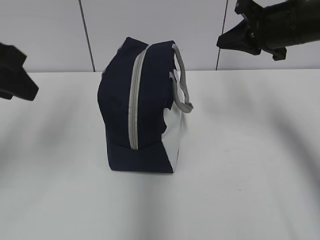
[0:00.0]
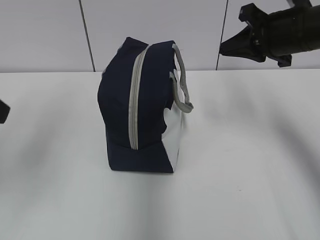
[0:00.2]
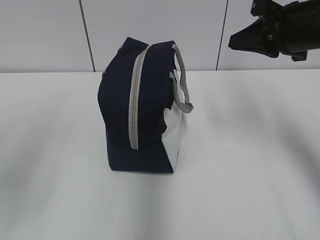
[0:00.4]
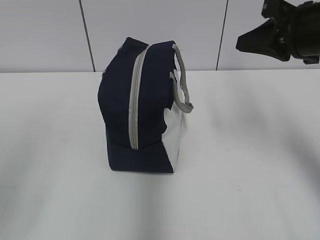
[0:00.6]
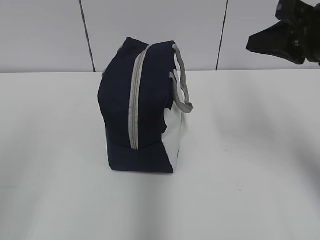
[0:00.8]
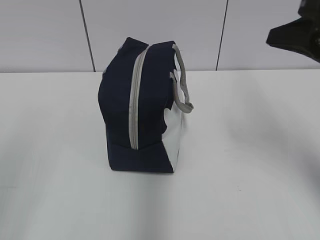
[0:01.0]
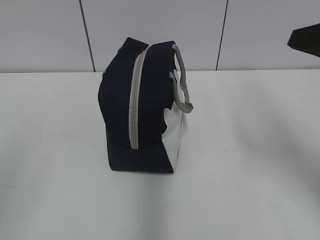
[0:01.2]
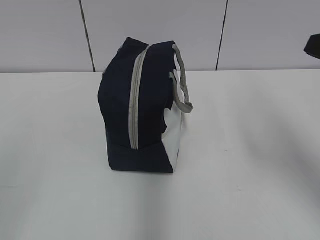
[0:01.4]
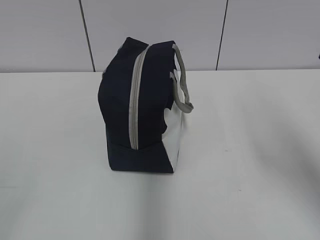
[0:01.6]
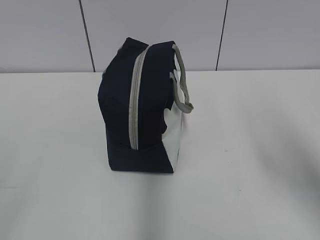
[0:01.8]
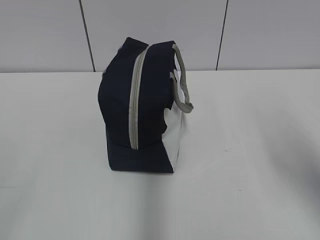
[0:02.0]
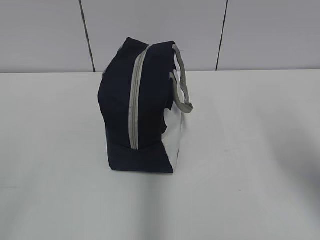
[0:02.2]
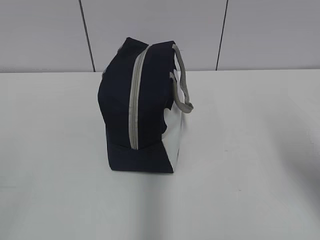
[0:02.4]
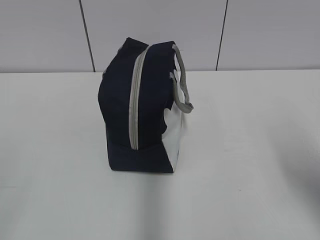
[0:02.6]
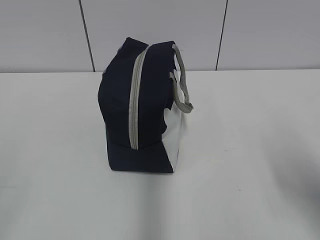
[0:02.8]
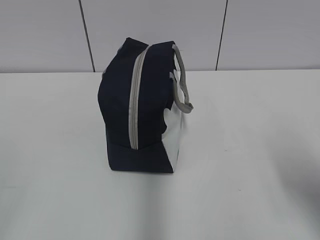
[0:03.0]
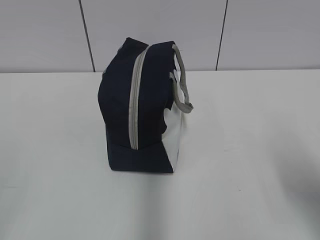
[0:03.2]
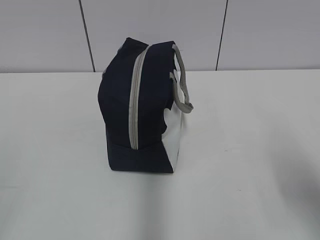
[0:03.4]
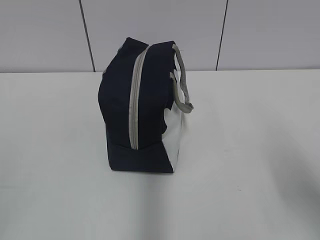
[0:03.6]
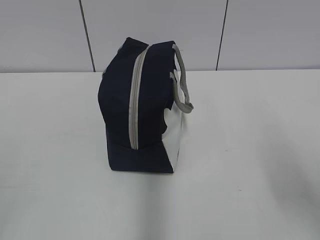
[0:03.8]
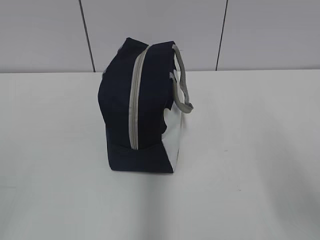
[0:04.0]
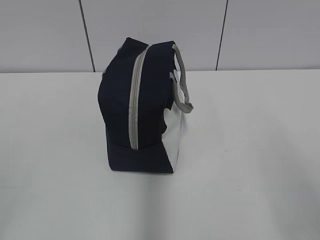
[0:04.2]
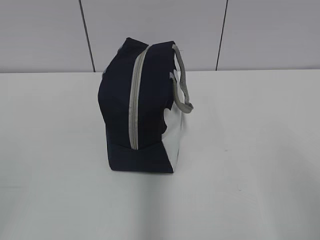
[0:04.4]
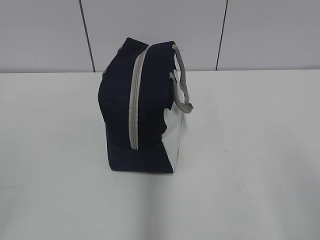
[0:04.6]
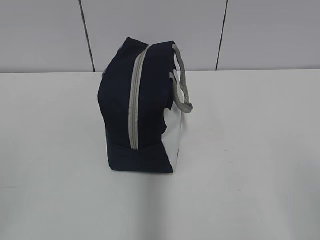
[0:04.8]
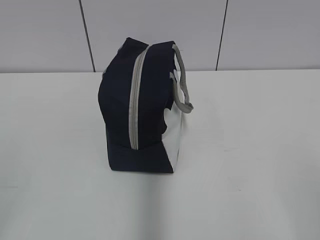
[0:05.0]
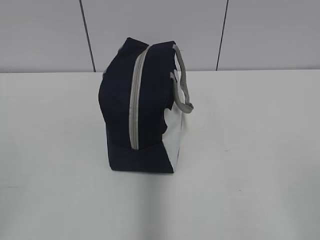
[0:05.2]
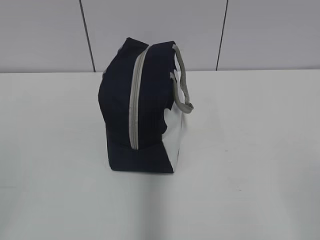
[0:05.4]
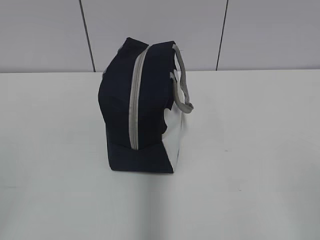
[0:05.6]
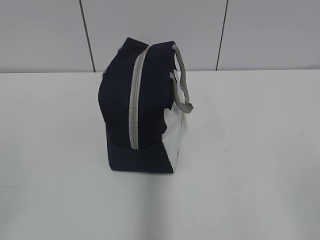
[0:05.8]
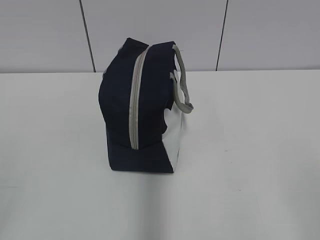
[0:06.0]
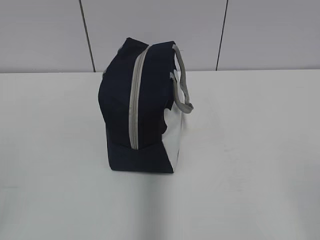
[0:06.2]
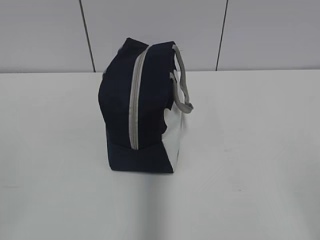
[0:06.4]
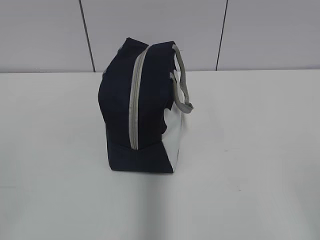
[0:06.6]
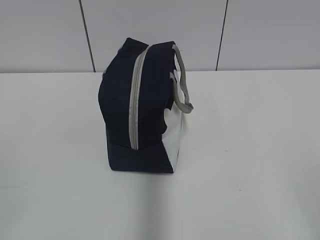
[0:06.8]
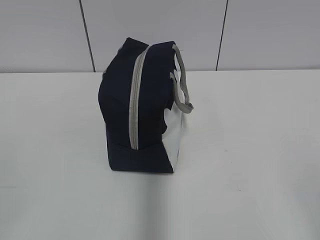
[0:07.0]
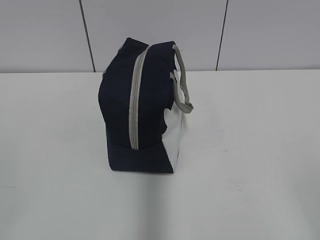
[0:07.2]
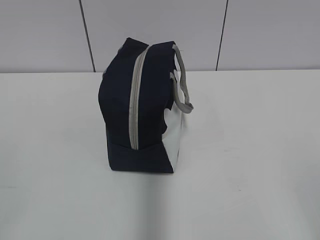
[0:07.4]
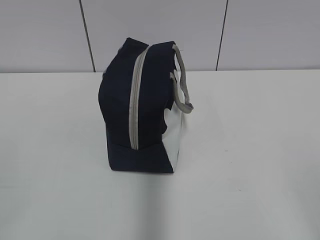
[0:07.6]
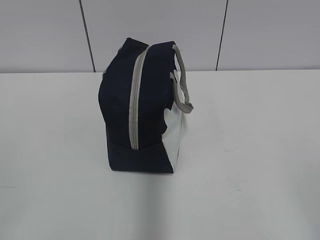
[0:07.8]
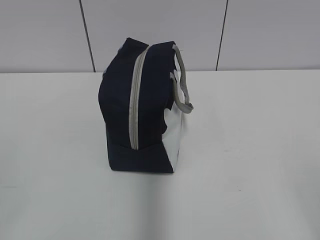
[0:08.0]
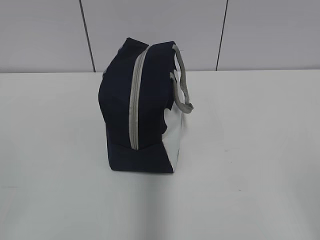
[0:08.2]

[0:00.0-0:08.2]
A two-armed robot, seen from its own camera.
0.0 to 1.6 s: The two grippers go approximately 25 cm backward.
1.6 to 3.2 s: The right gripper shifts some 10 cm downward.
3.2 to 5.0 s: The right gripper shifts about 15 cm backward, and opens its fingers.
6.6 to 8.2 s: Neither gripper changes place.

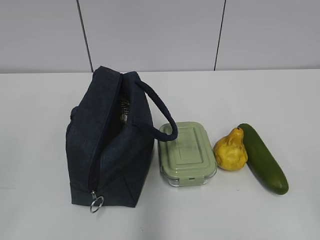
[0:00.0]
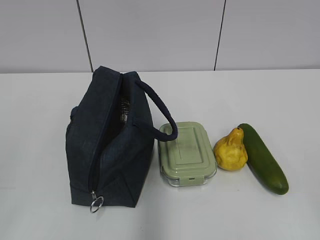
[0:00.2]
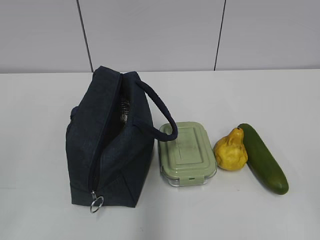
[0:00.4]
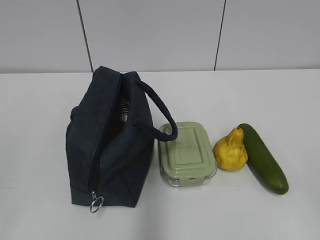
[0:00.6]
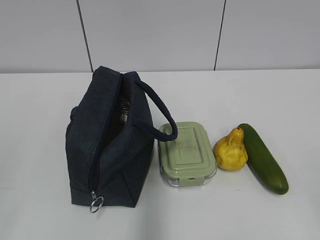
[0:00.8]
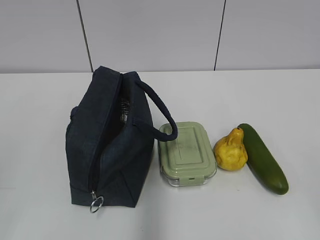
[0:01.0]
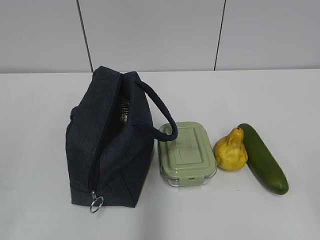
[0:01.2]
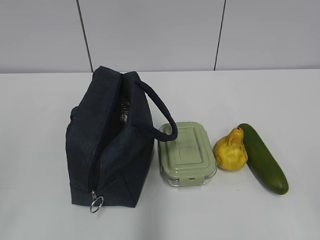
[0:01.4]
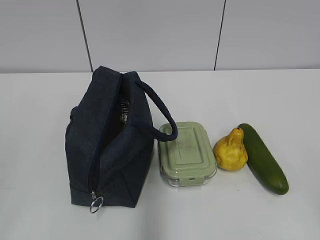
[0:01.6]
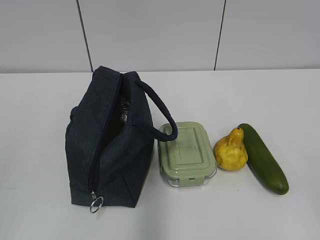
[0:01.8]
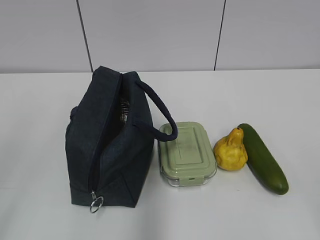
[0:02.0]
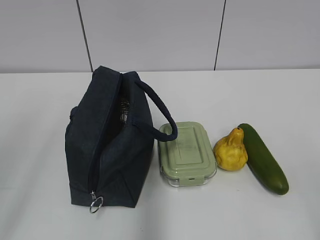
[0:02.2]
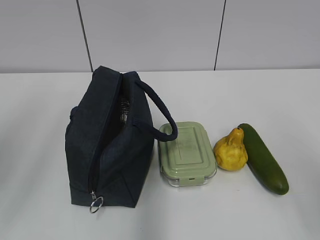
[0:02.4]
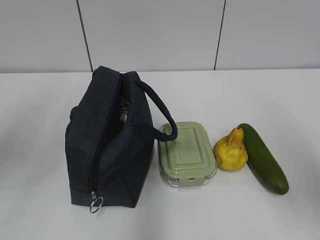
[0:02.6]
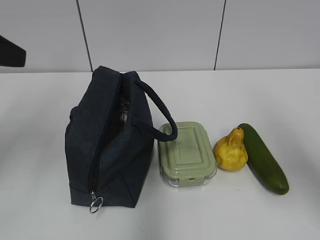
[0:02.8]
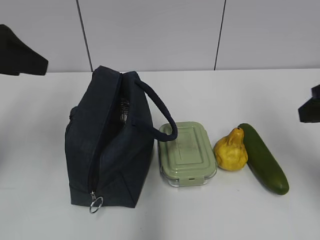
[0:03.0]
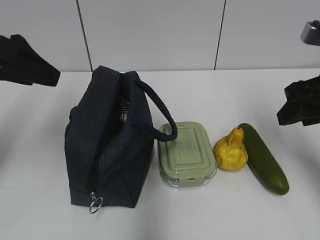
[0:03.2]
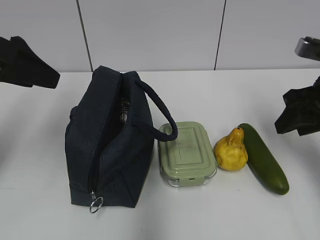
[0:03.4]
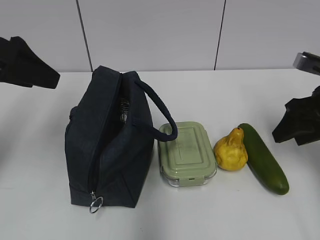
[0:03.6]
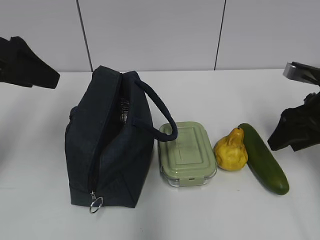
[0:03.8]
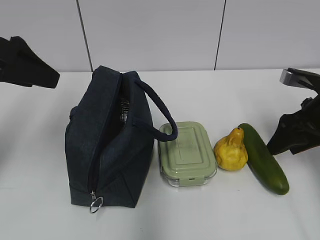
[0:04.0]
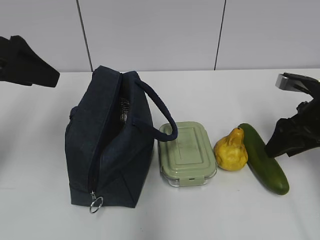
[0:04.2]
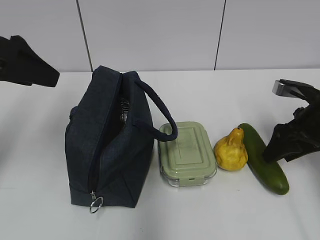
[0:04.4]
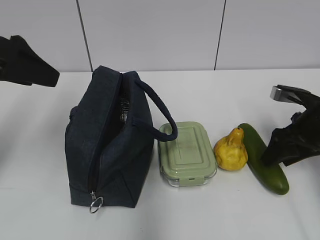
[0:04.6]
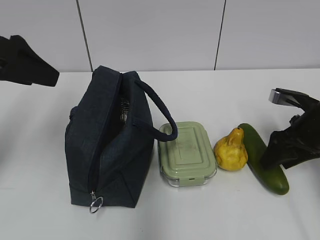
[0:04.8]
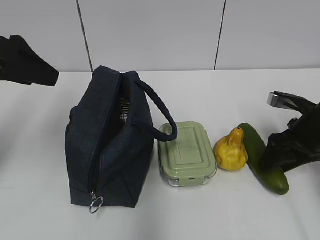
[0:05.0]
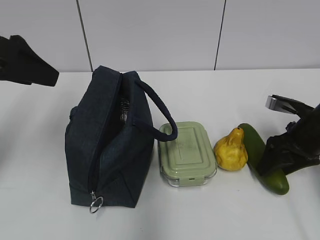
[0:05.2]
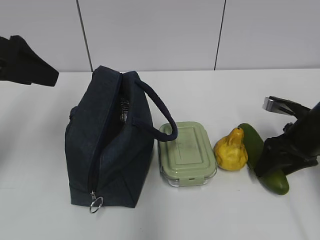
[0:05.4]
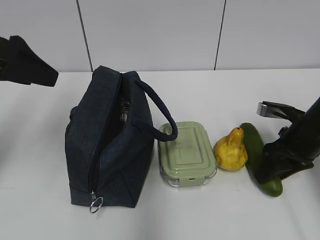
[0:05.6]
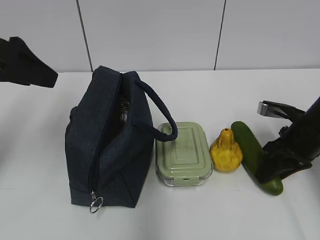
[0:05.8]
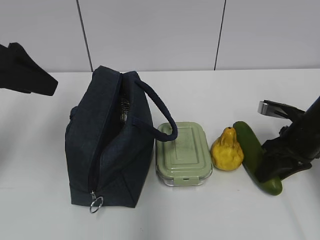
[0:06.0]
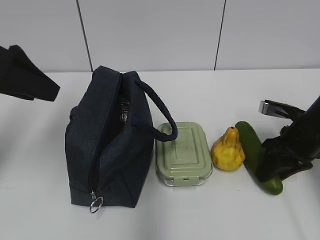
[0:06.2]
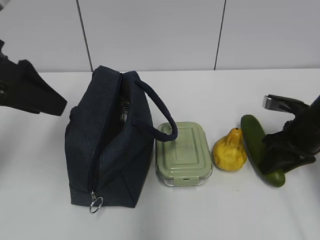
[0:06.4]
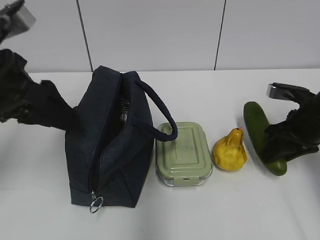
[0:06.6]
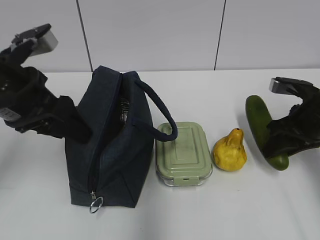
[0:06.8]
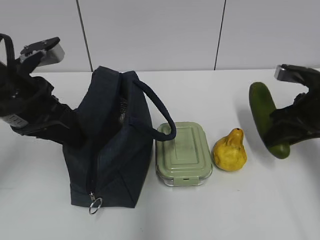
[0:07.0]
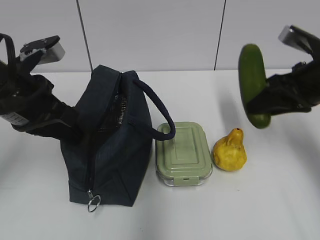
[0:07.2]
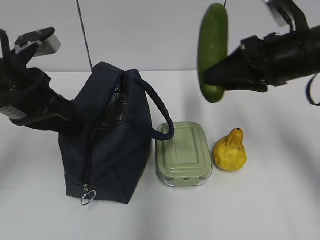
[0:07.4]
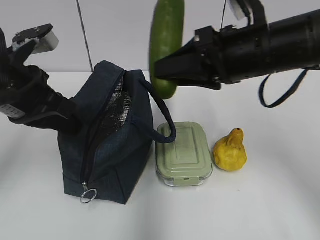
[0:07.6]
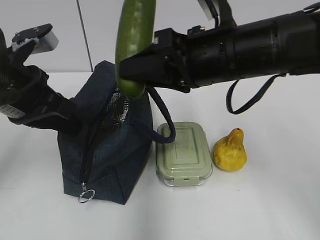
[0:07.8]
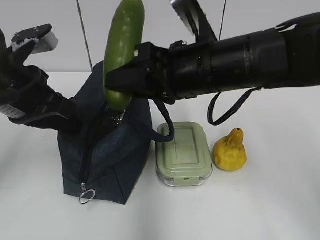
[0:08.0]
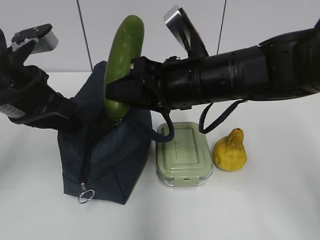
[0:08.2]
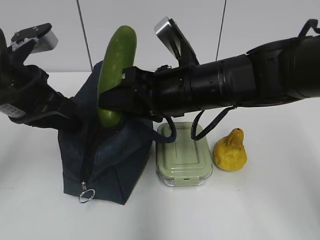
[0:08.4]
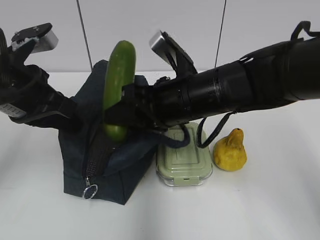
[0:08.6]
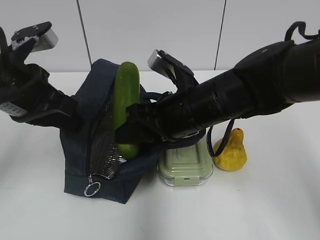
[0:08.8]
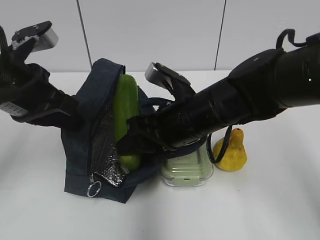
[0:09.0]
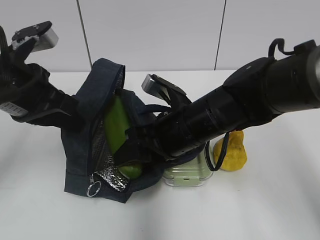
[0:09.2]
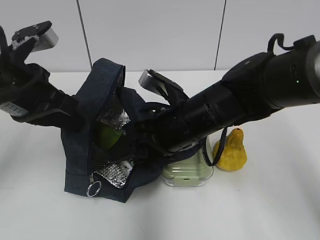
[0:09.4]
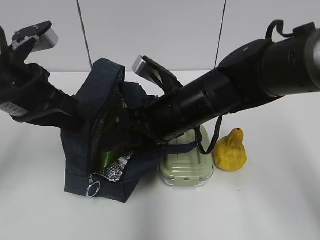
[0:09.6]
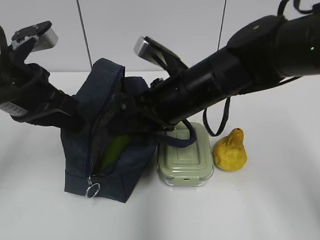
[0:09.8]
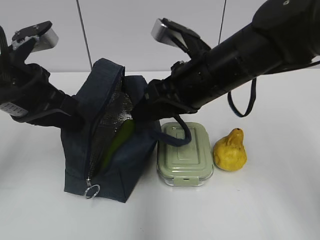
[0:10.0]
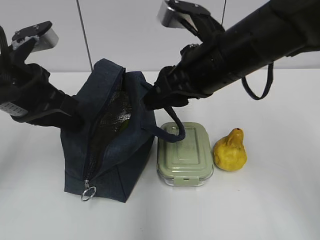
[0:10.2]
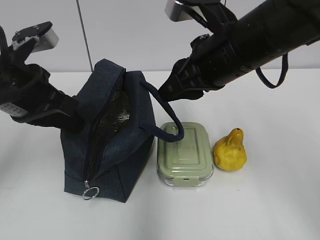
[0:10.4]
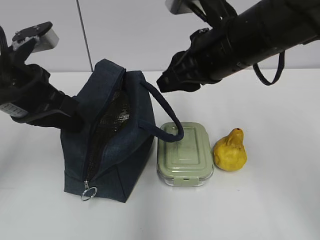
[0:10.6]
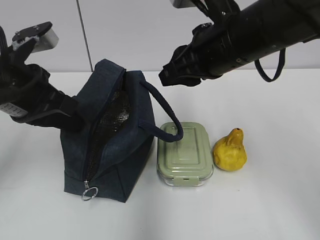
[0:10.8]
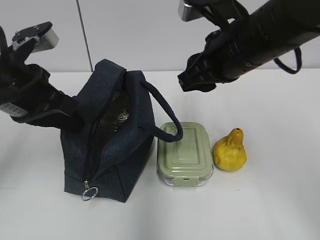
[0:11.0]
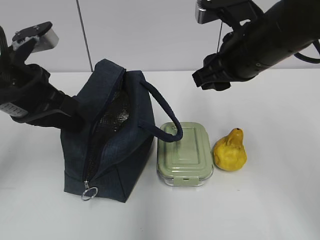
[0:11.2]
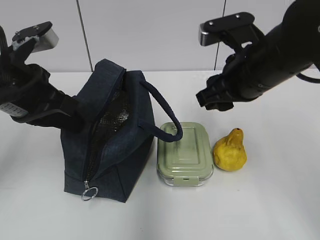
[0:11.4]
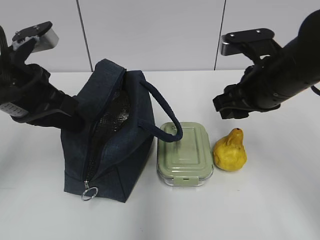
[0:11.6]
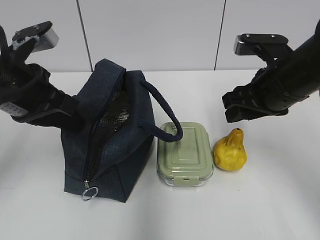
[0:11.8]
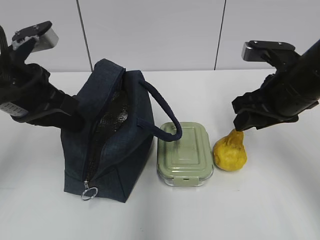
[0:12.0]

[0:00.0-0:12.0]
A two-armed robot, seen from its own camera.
1.6 to 3.0 s: The two grippers go roughly 25 cm forward. The left gripper opens.
3.0 to 4.4 s: The right gripper travels downward and forward by some 15 cm.
4.4 to 6.0 s: The right gripper closes its fingers.
6.0 to 7.6 s: The left gripper moves downward, some 5 cm, and closes; the right gripper shifts approximately 20 cm upward and to the left.
7.6 to 9.0 s: The right gripper is displaced downward and to the left by approximately 10 cm.
9.0 to 10.4 s: The right gripper is displaced upward by roughly 10 cm.
10.4 to 12.0 s: The right gripper travels to the right and downward by approximately 10 cm.

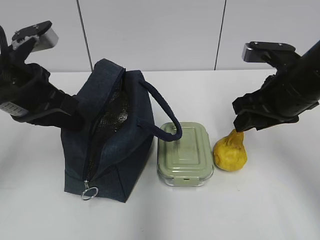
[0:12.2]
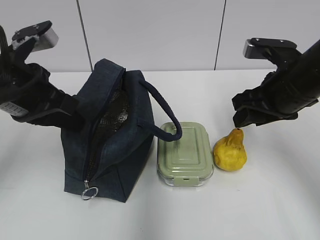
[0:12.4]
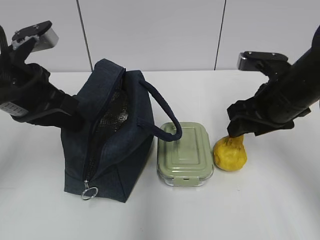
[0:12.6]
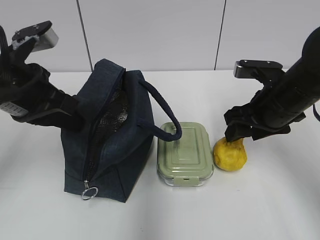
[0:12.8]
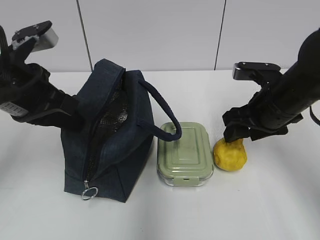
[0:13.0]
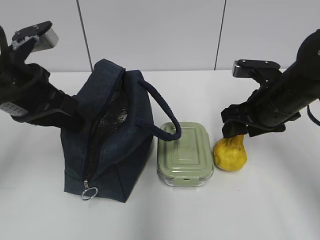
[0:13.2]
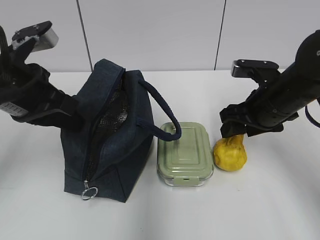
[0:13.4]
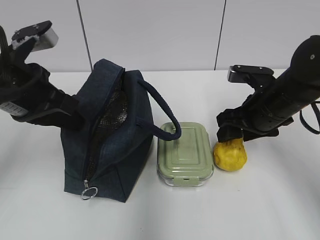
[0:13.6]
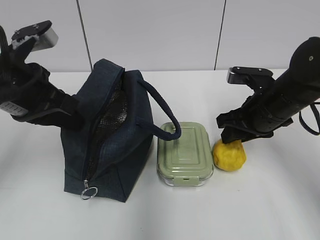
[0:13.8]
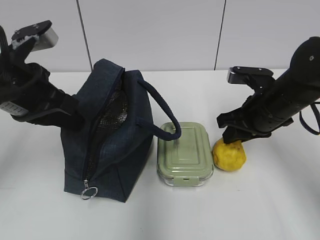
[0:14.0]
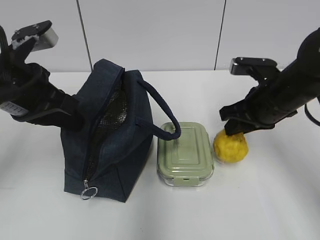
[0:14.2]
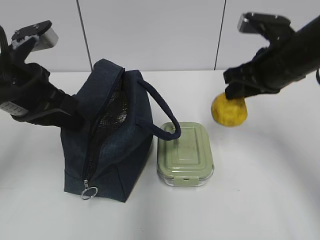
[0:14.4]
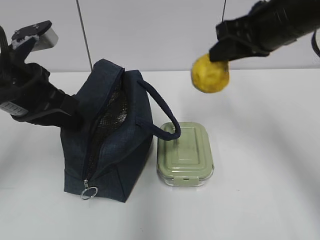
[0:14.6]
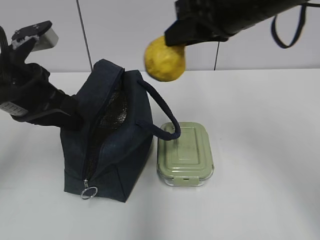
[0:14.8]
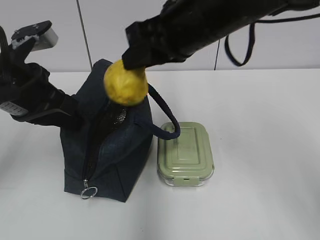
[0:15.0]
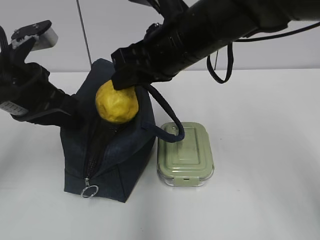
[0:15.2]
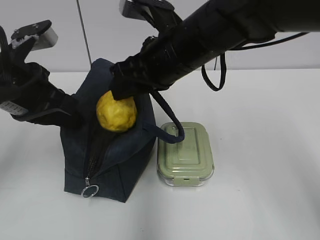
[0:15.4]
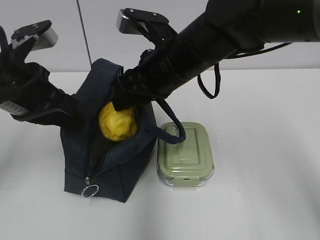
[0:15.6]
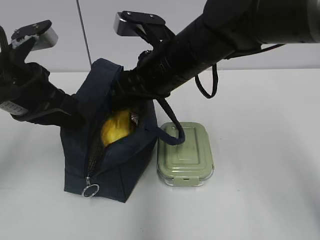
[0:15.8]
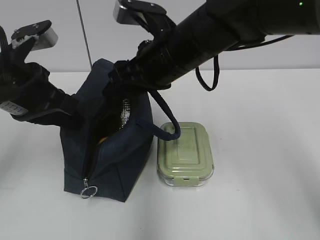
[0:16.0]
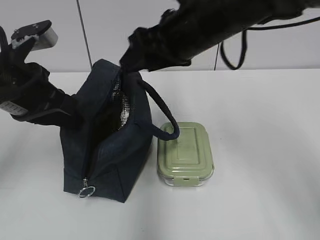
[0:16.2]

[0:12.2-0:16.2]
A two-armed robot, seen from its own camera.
12.2 to 13.6 s: The right gripper moves downward, approximately 5 cm.
13.6 to 14.8 s: The right gripper moves upward and to the left, roughly 20 cm, and closes its fingers.
14.8 to 16.2 s: The right gripper opens its fingers.
